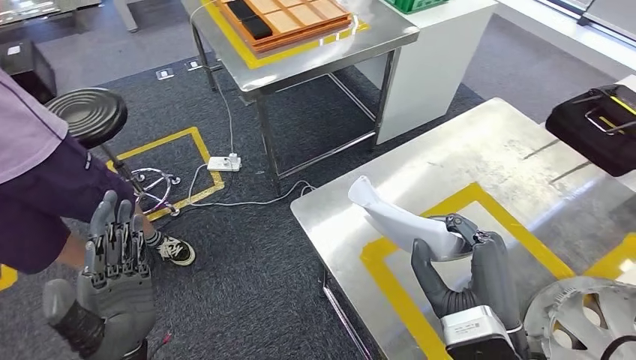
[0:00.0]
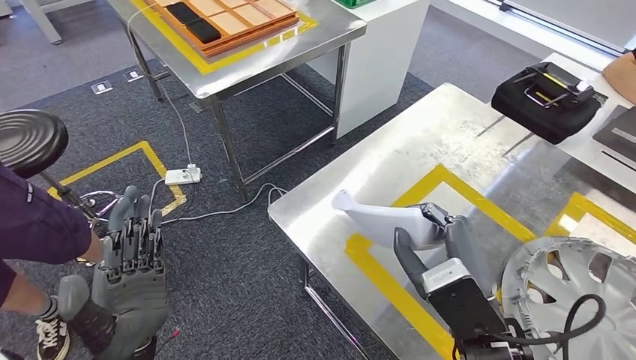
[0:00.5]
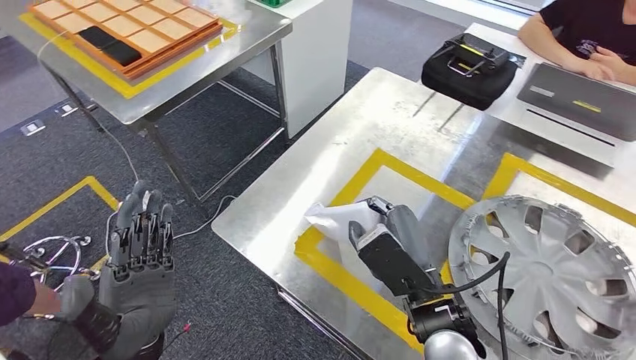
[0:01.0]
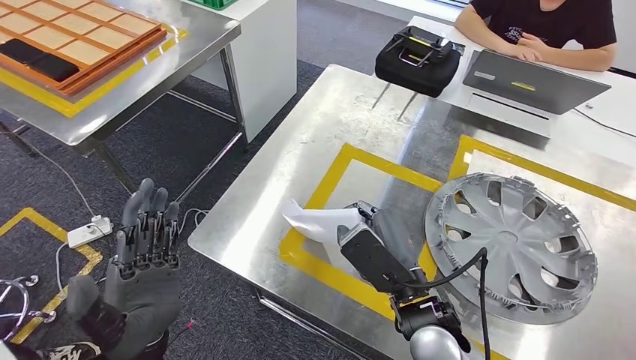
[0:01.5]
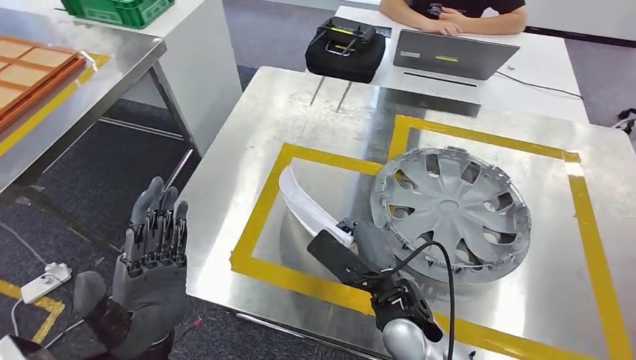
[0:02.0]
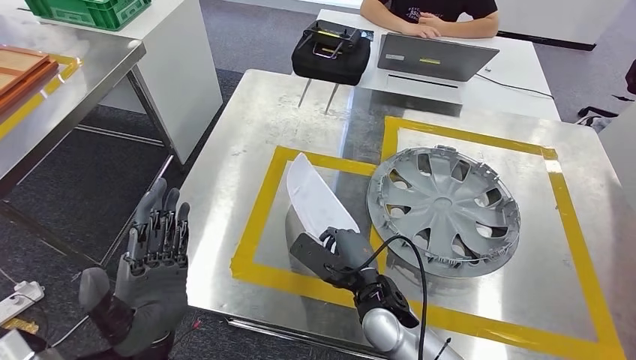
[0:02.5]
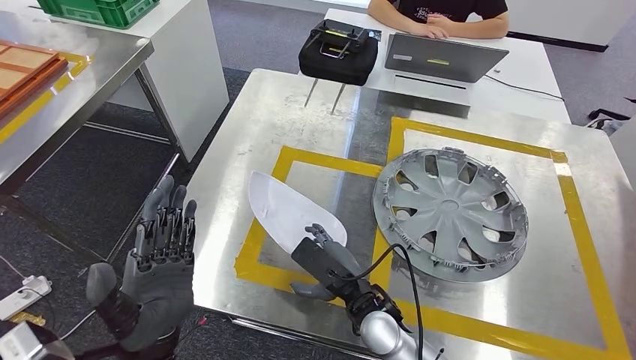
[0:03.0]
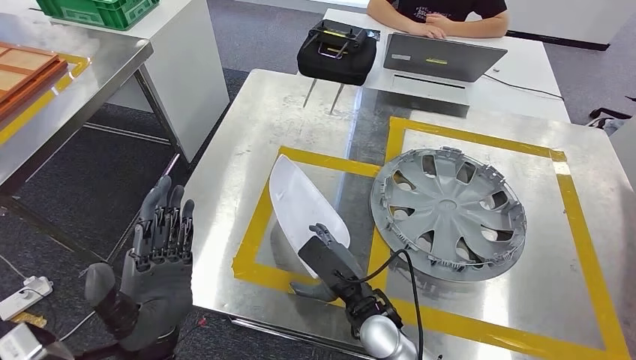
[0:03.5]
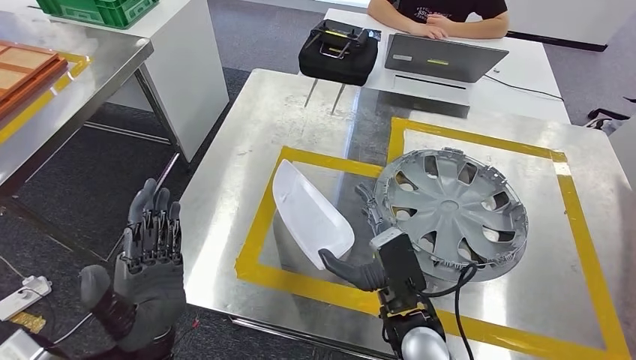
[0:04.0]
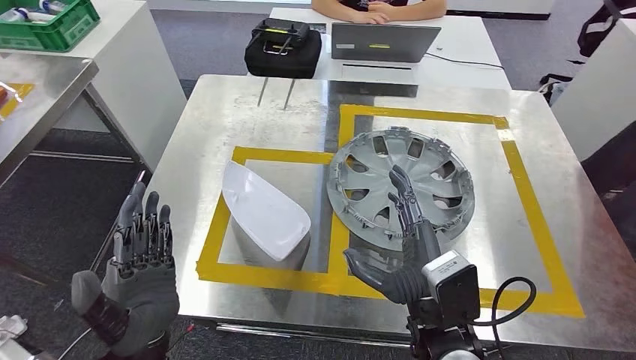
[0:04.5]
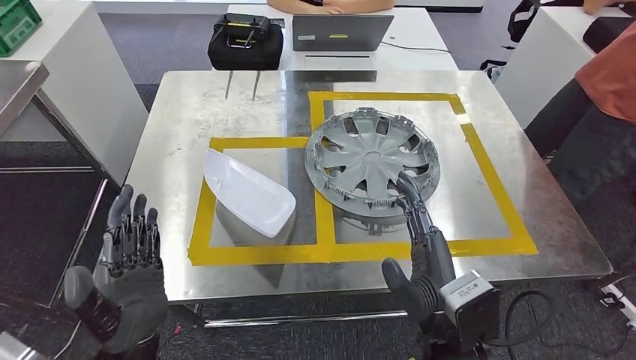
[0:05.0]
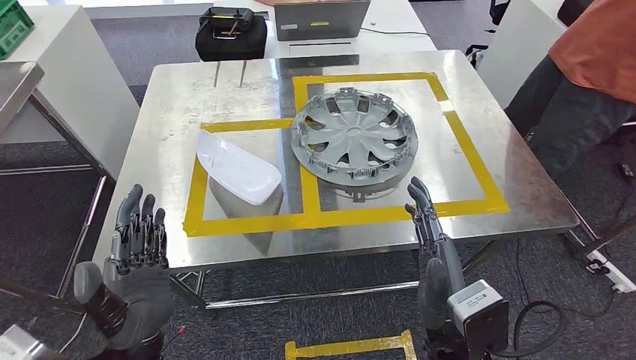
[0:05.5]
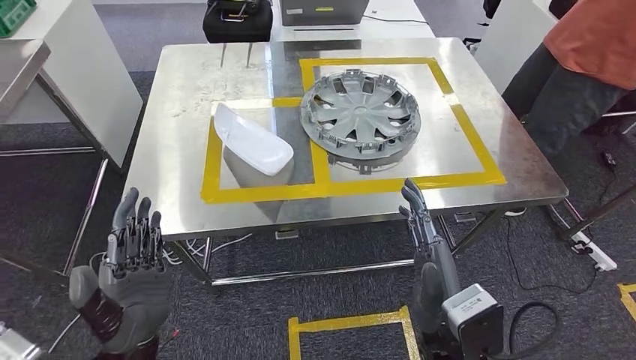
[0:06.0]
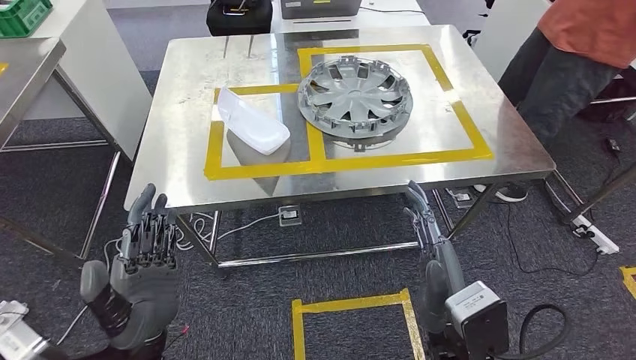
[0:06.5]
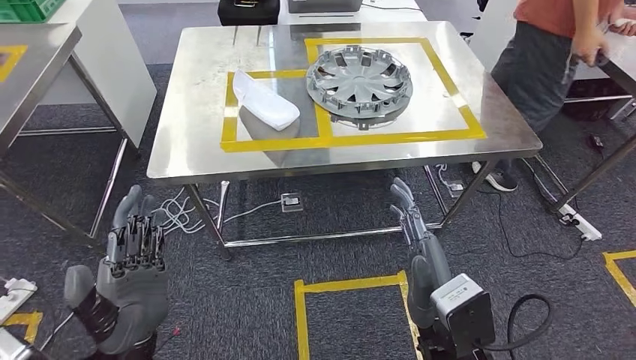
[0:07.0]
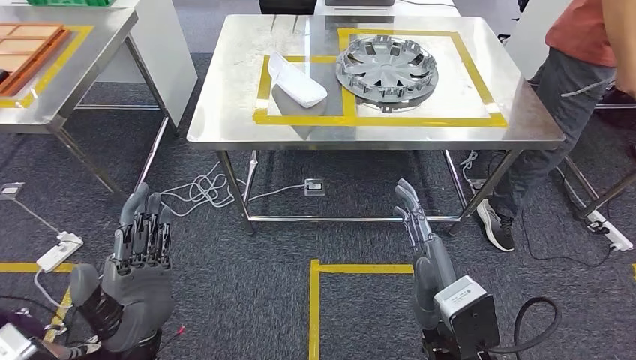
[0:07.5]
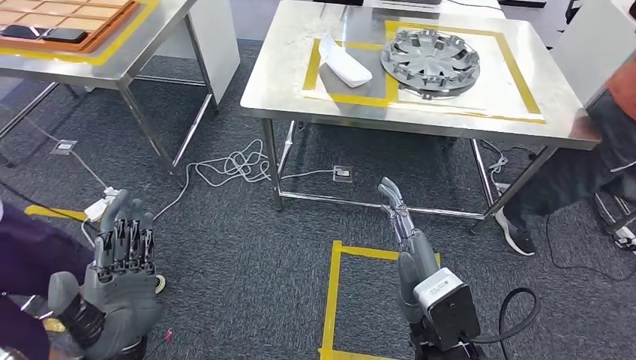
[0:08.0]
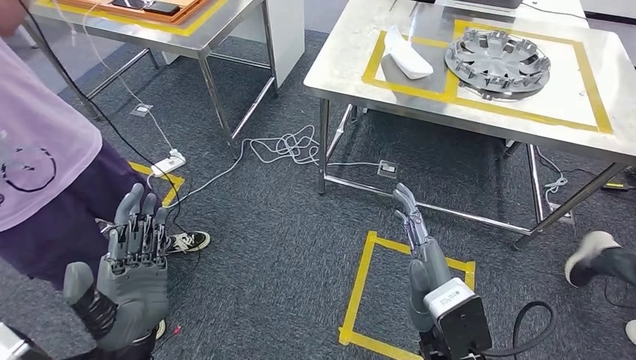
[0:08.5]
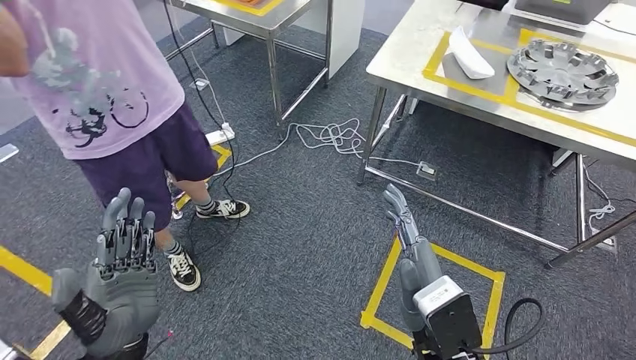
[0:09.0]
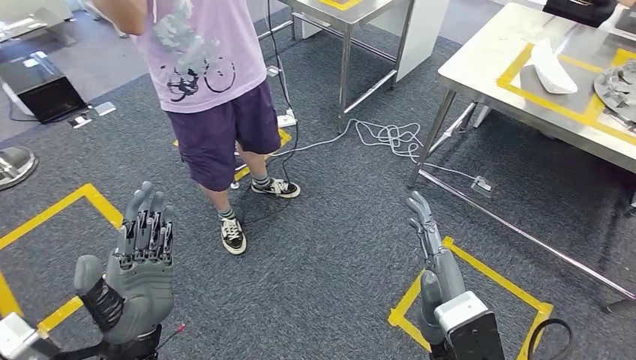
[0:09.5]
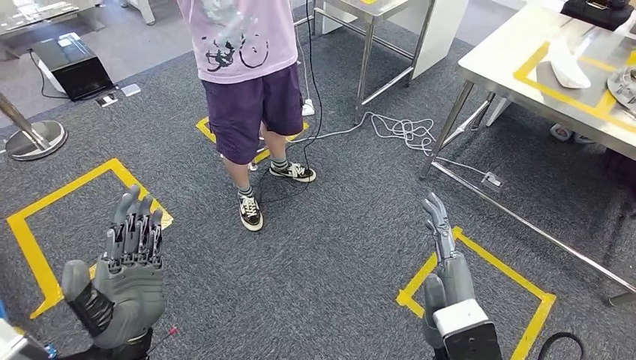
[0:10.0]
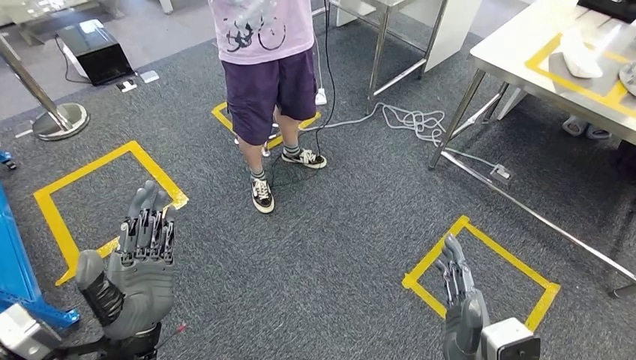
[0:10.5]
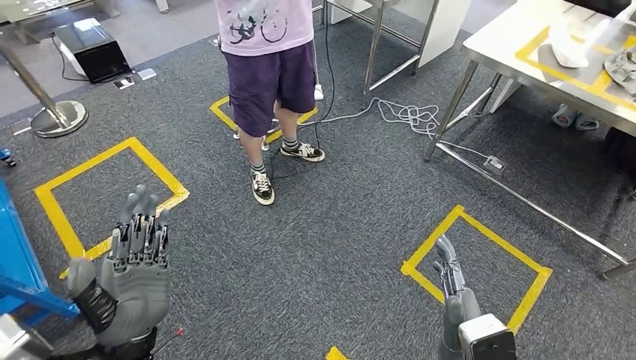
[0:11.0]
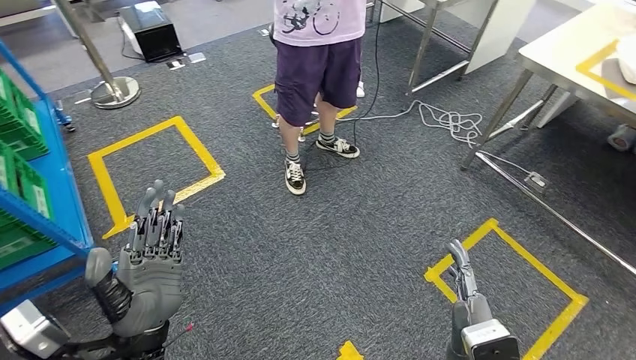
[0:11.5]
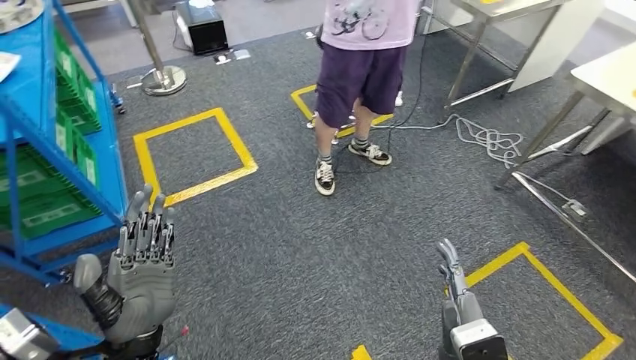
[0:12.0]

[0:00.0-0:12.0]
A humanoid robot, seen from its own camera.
Step, 0:00.0 to 0:04.0: Insert the small parts into the corresponding holes on the workbench.

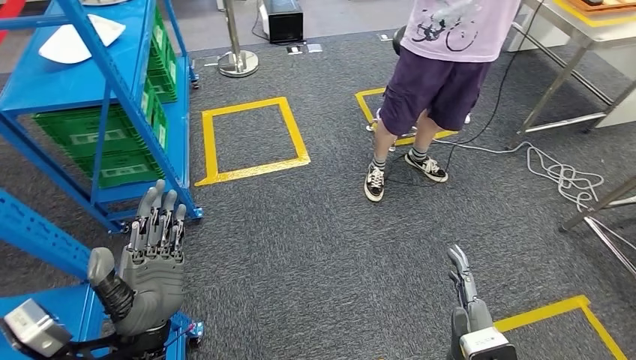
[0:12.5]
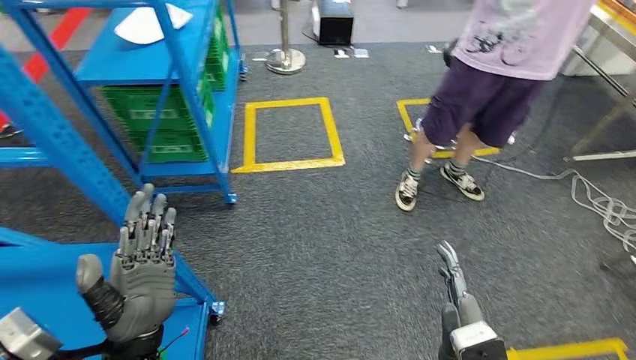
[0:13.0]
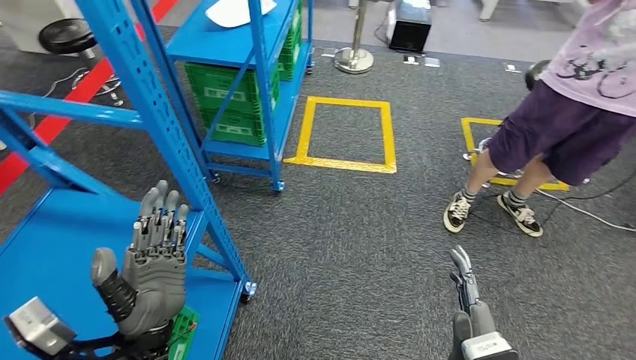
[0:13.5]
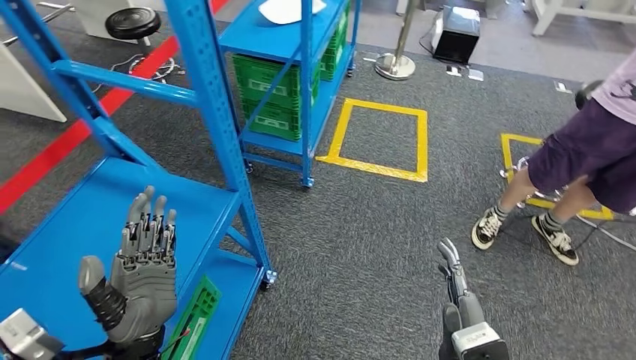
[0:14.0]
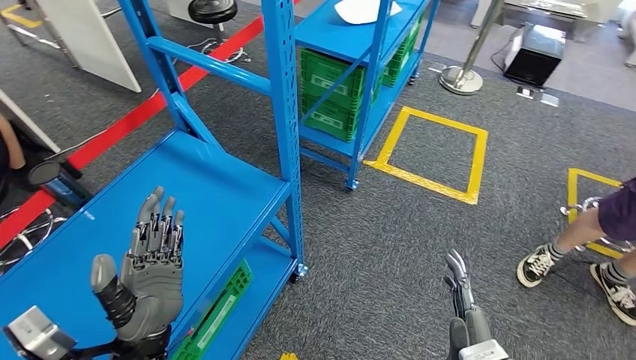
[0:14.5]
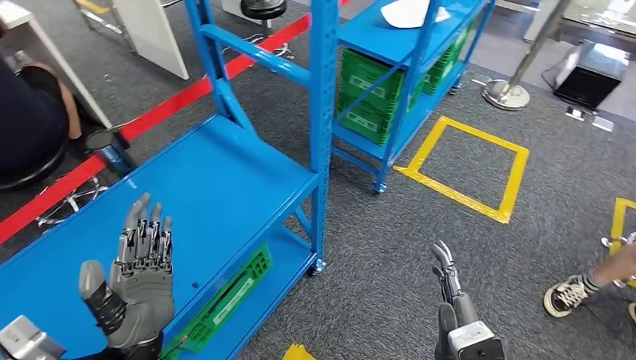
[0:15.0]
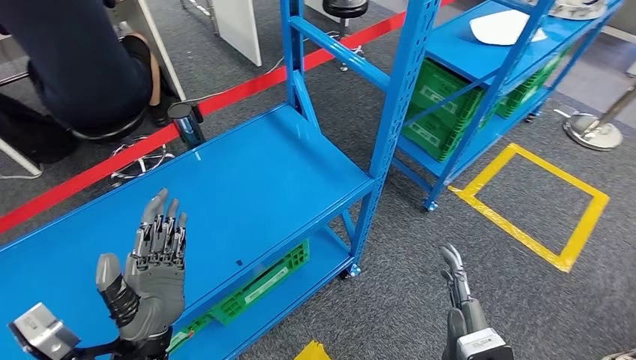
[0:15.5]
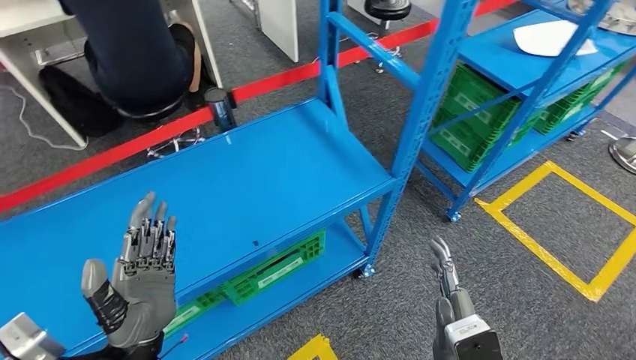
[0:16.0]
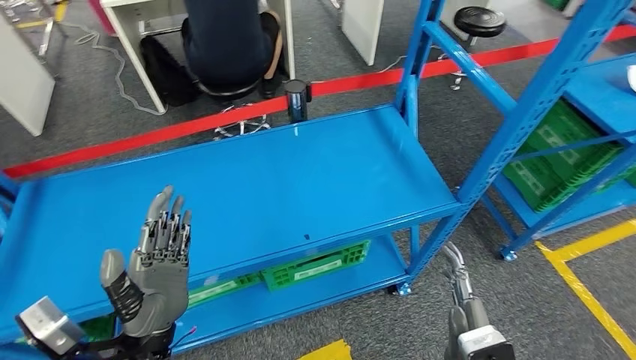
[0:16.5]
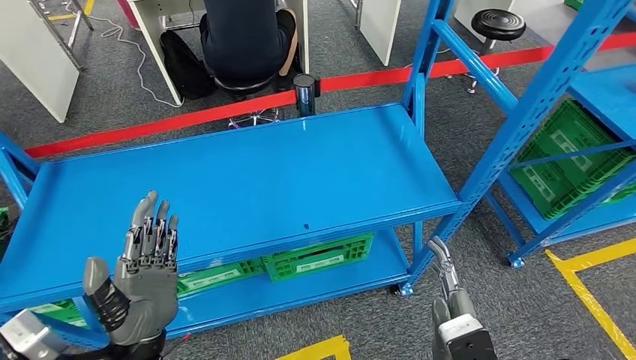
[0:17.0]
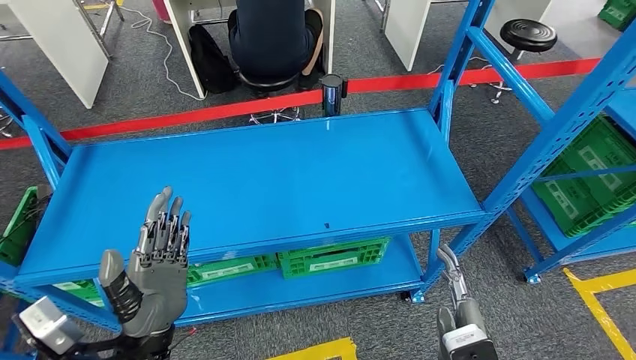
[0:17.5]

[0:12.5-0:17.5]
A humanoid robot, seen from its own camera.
Step, 0:12.5 to 0:17.5: Move to the initial position at the workbench.
